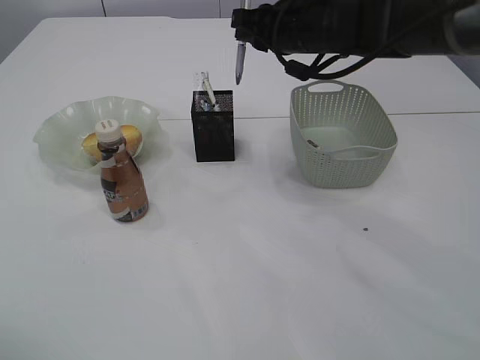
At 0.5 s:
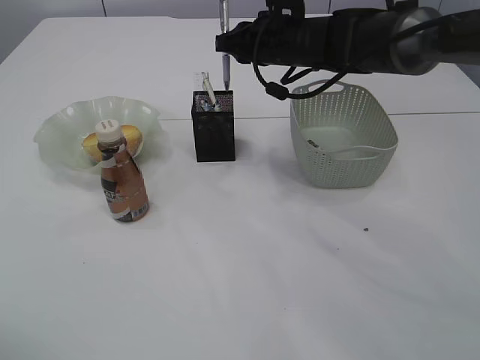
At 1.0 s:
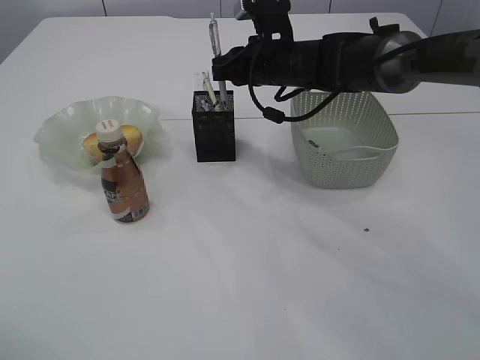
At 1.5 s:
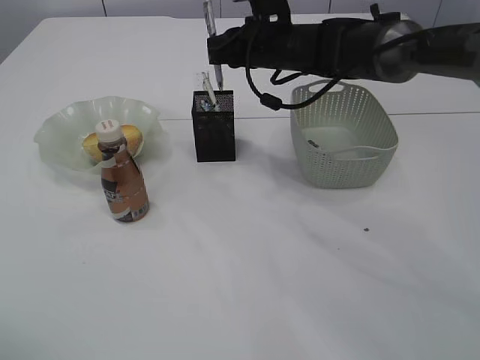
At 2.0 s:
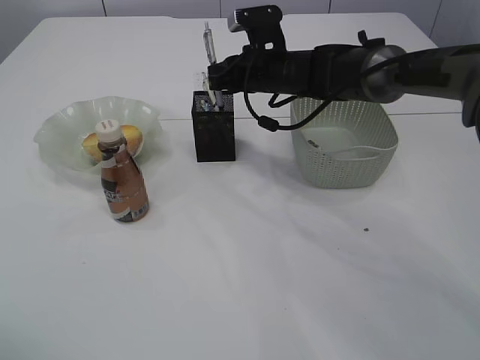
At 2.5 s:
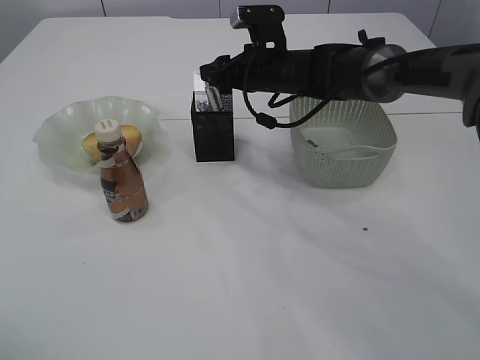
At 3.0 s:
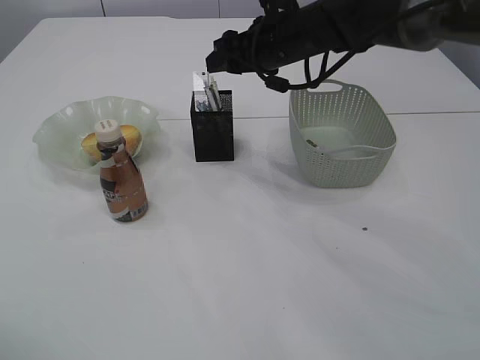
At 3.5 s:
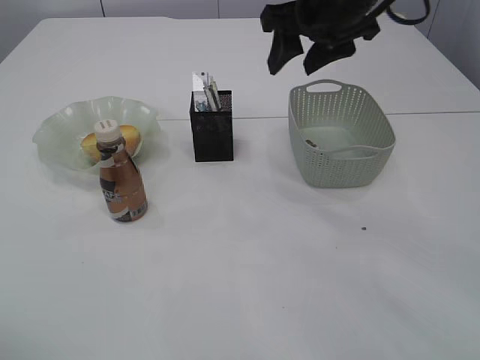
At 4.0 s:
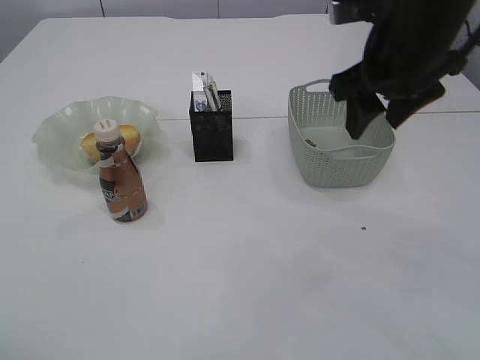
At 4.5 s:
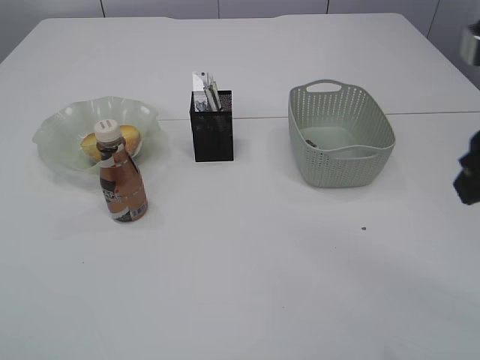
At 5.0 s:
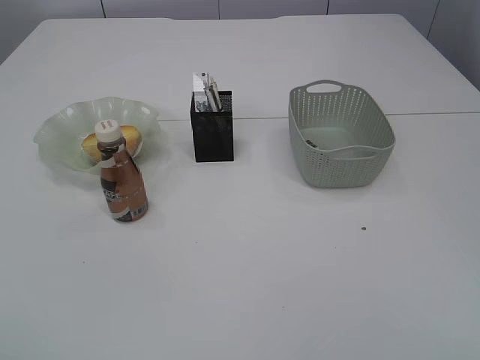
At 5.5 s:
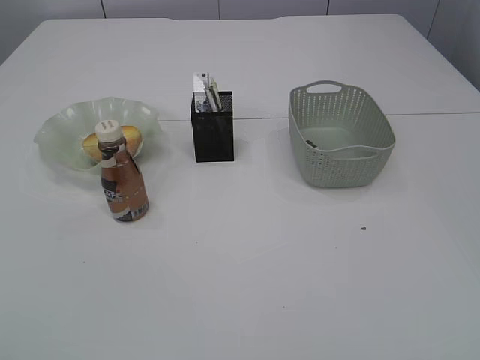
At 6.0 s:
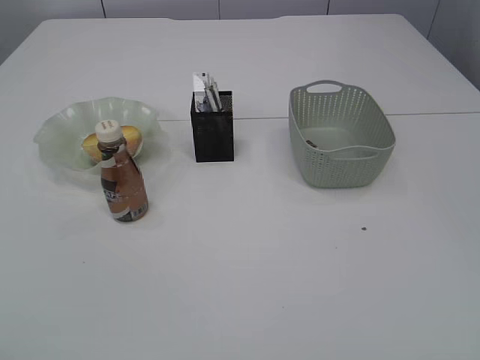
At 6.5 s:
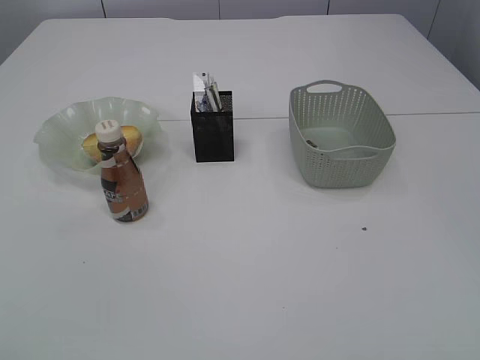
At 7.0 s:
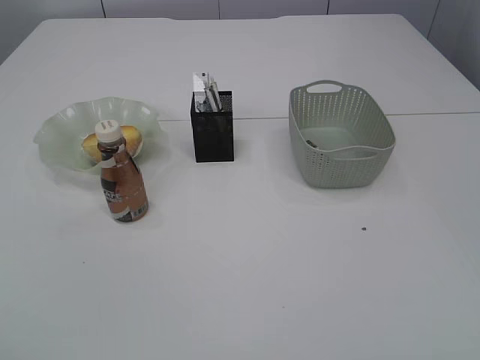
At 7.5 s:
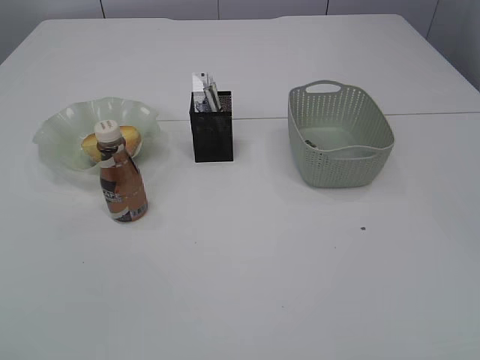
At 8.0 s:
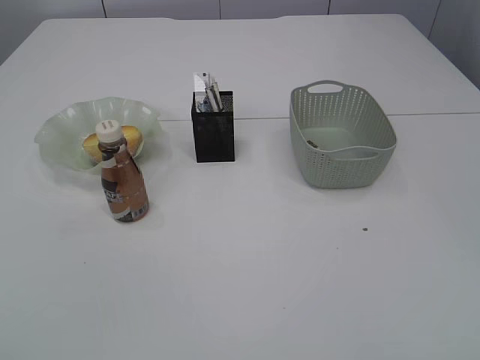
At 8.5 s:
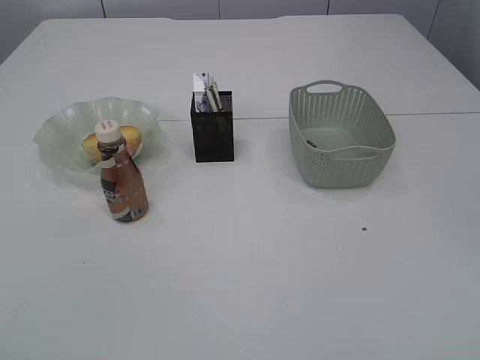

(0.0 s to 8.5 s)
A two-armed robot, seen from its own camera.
Step, 0.0 s - 2.5 s: Place the pen into the pen holder.
0.0 s - 2.0 s: The right gripper shifts approximately 10 cm downward and forward.
2.0 s - 4.0 s: The right gripper travels backward, upward and to the right by some 20 cm, and opens.
4.0 s - 6.5 s: The right gripper heads backward, covering some 35 cm. The left gripper shifts approximately 15 cm backward, and opens up.

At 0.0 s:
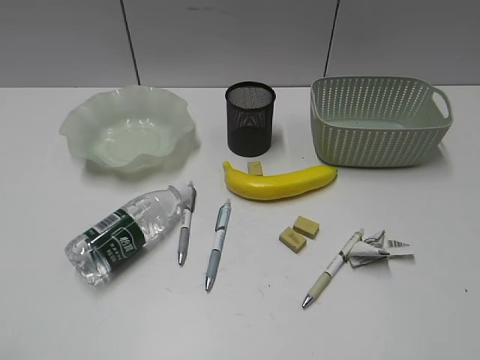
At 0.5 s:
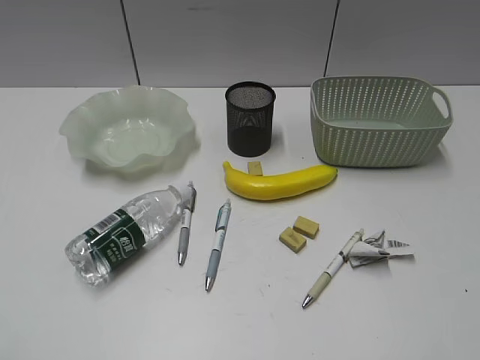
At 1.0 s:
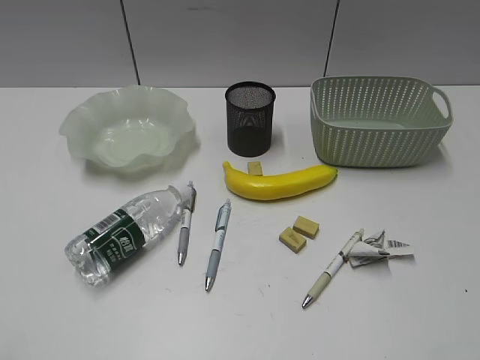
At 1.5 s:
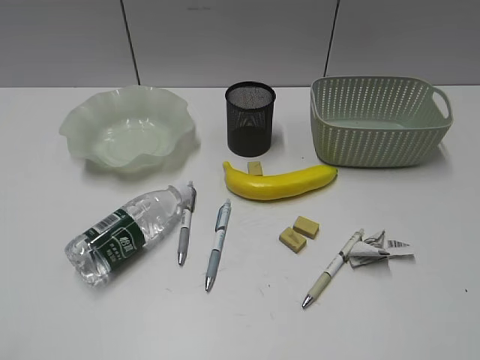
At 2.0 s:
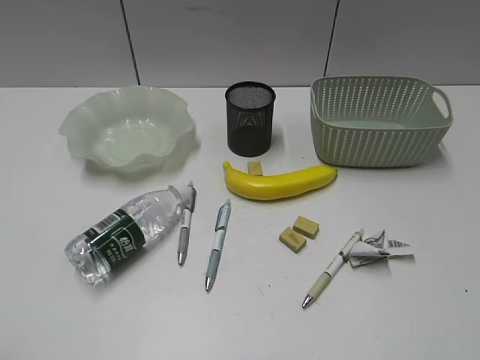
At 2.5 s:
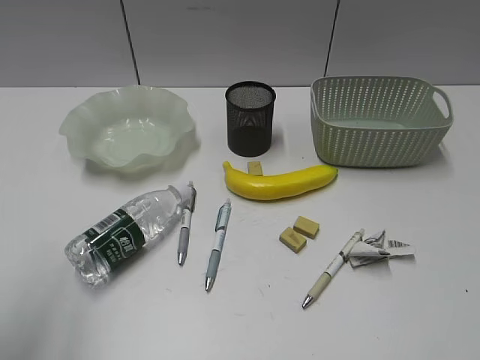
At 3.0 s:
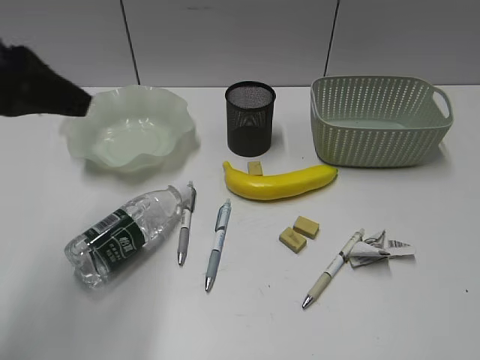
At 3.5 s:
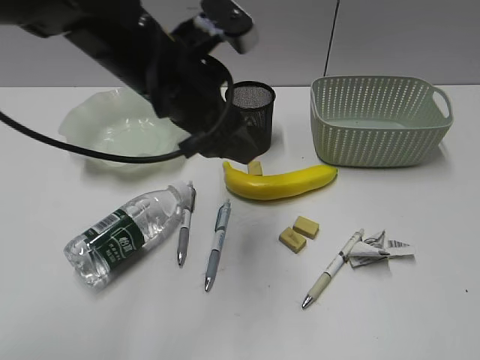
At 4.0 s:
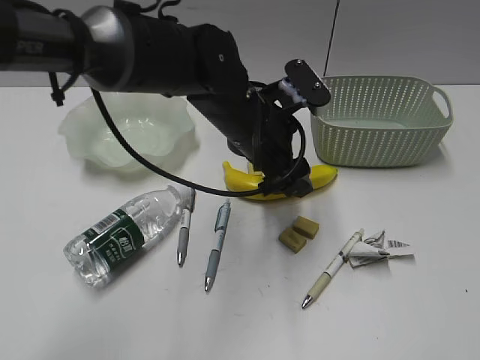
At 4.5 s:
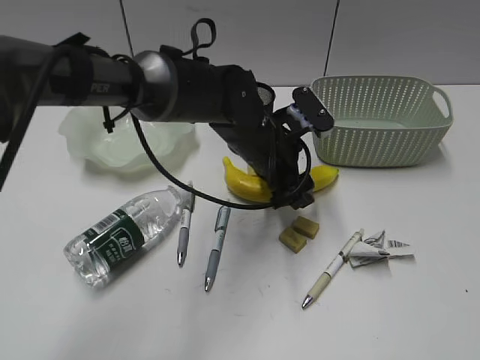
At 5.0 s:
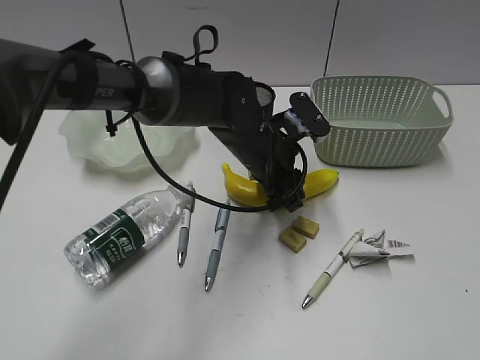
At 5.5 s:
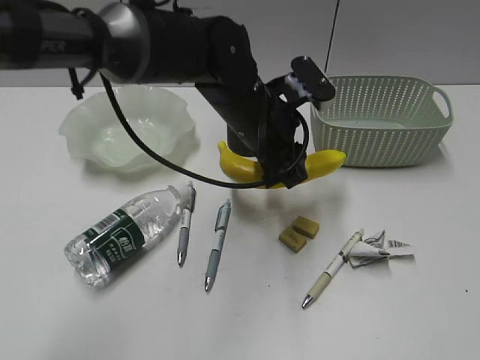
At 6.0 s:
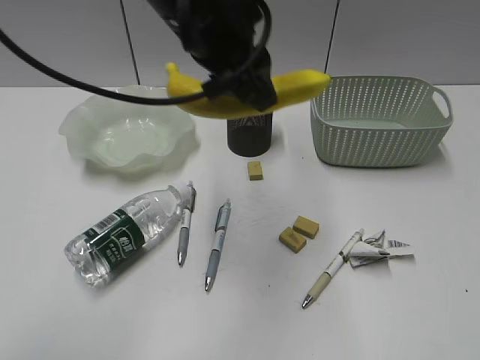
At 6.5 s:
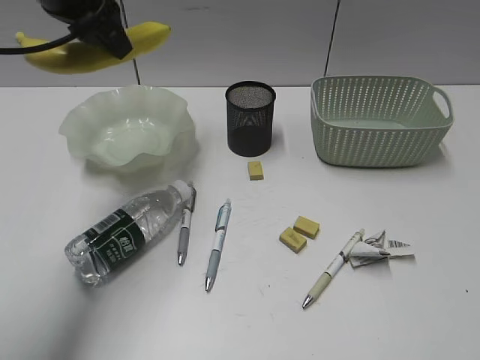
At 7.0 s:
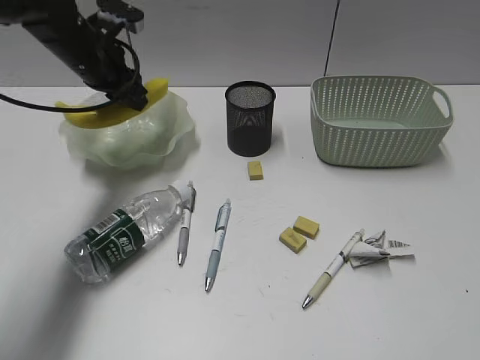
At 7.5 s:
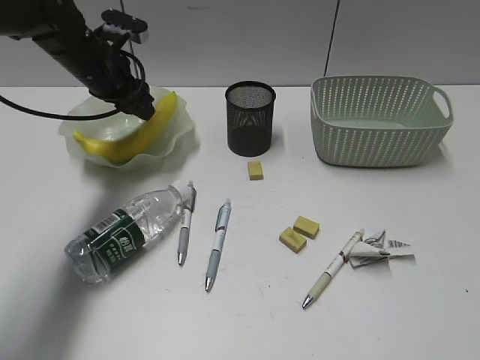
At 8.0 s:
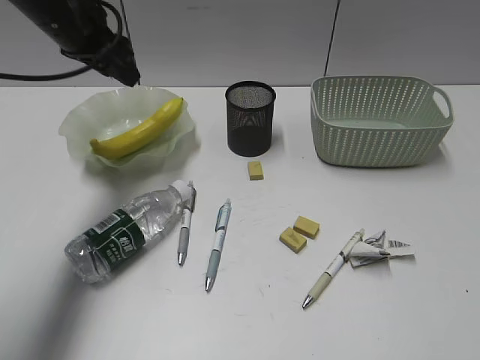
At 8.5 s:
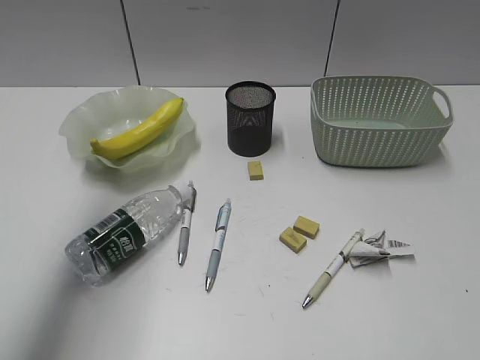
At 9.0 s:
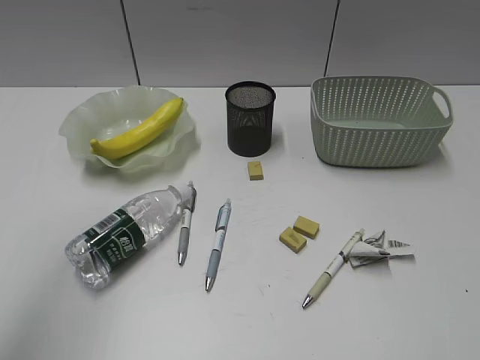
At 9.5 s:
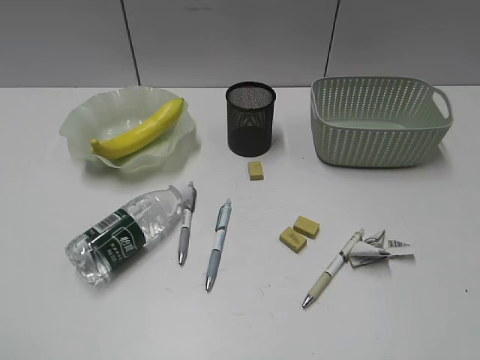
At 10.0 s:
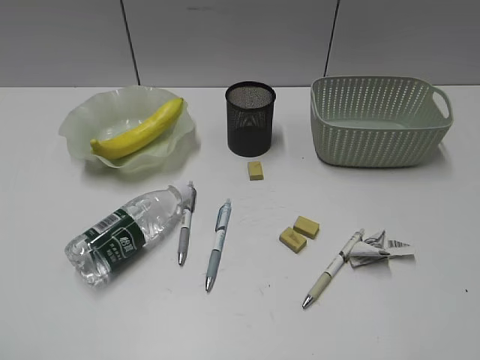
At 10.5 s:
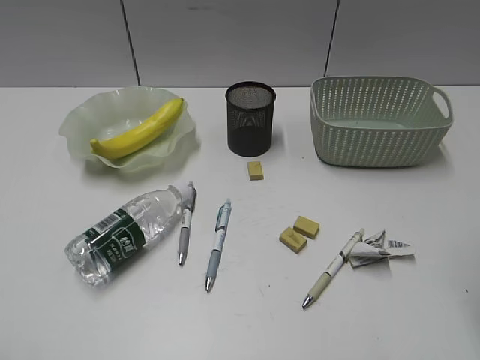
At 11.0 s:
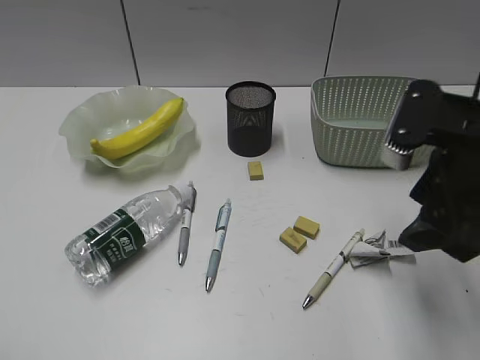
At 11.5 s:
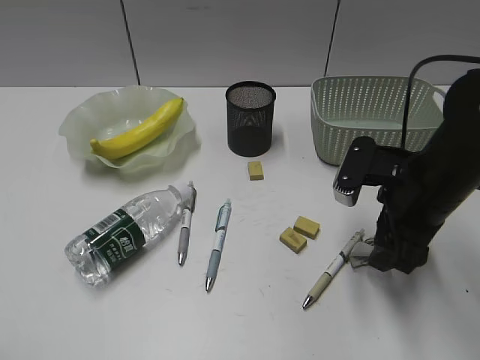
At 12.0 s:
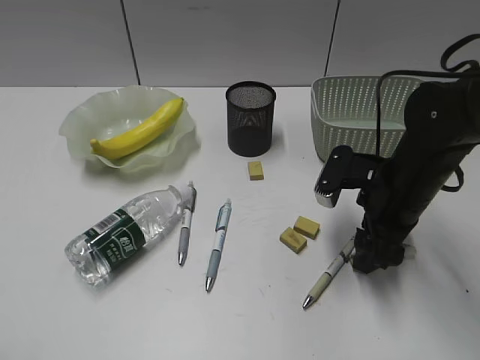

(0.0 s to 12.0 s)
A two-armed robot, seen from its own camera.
Step, 2.0 s - 5.0 s: Grasp the banana with left gripper.
Step, 5.5 s - 7.5 s: Place the banana in the plate with left gripper.
2.0 s - 4.0 s: The left gripper travels forward and to the right by approximately 50 cm, and opens up.
4.0 s - 6.0 s: The left gripper travels upward by approximately 15 cm, and closes its fingers.
6.0 s - 8.0 s: The left gripper goes some 20 cm to the left and forward.
8.0 s - 10.0 s: The left gripper is displaced backward by about 40 cm.
10.0 s - 12.0 s: The right gripper moves forward, downward and to the left, approximately 35 cm.

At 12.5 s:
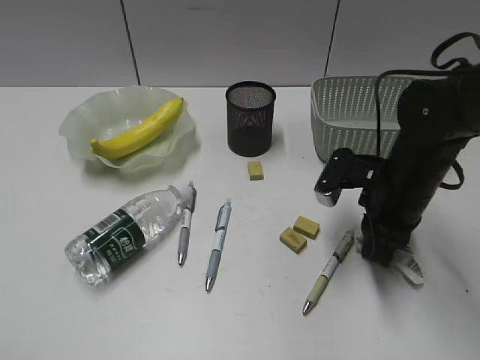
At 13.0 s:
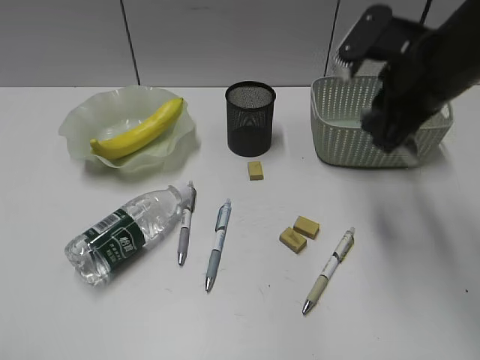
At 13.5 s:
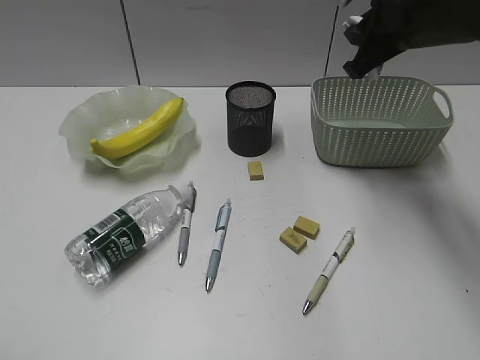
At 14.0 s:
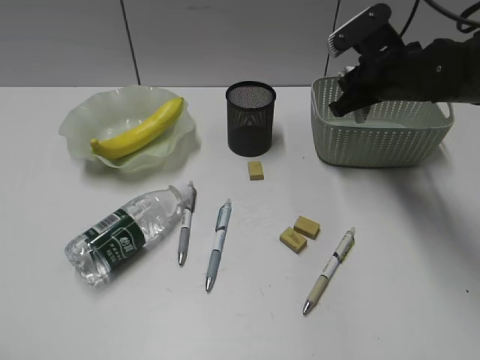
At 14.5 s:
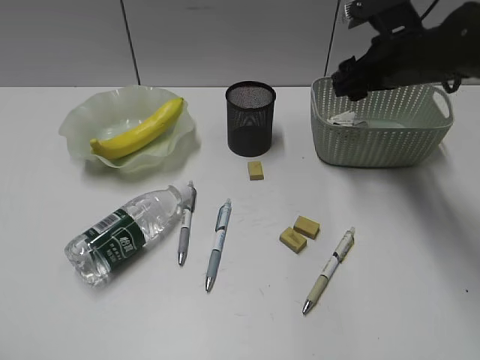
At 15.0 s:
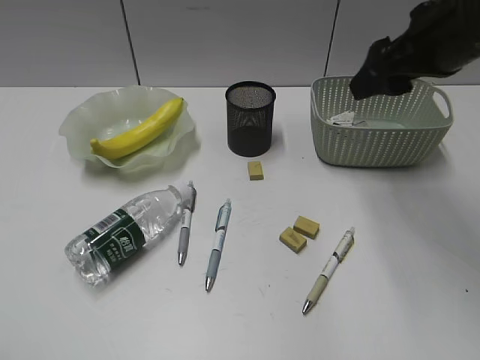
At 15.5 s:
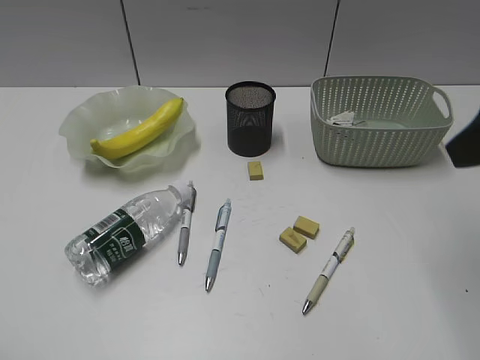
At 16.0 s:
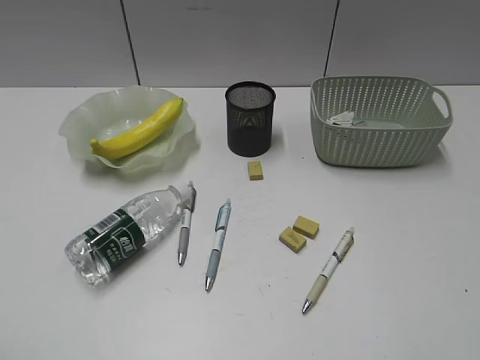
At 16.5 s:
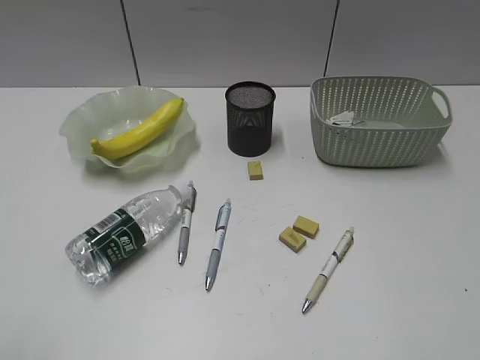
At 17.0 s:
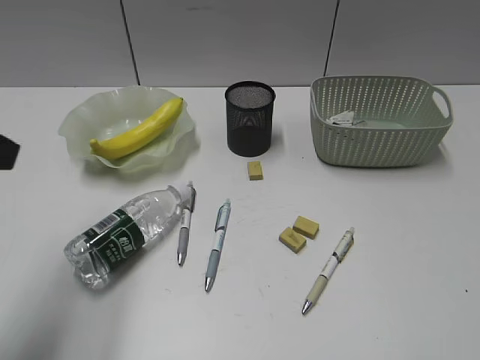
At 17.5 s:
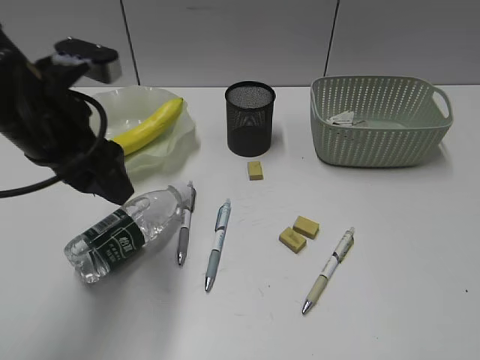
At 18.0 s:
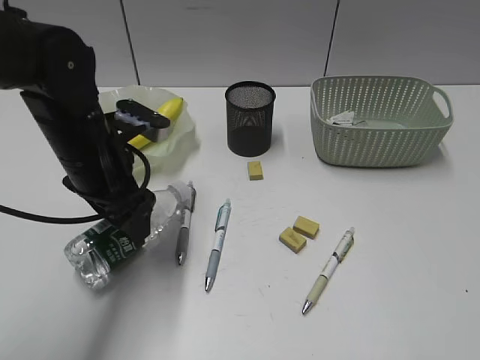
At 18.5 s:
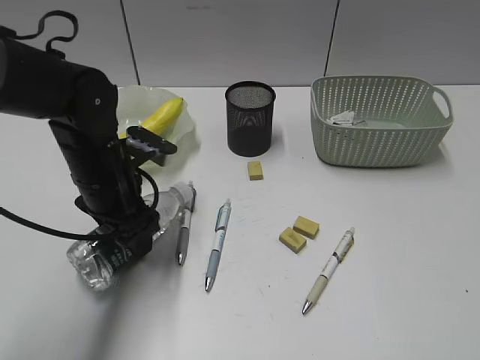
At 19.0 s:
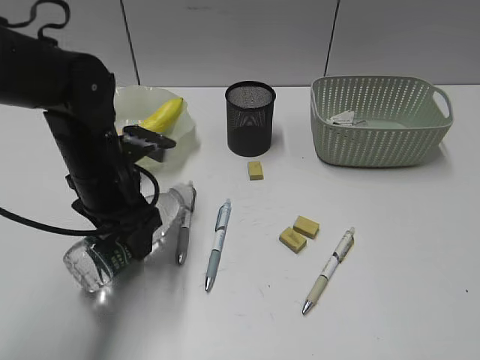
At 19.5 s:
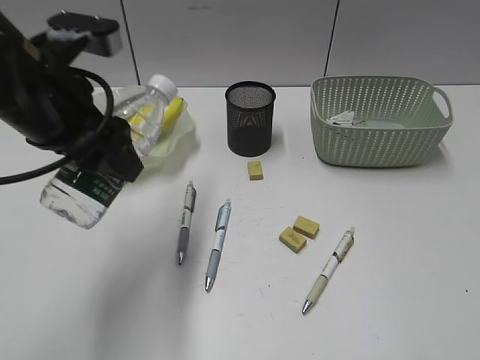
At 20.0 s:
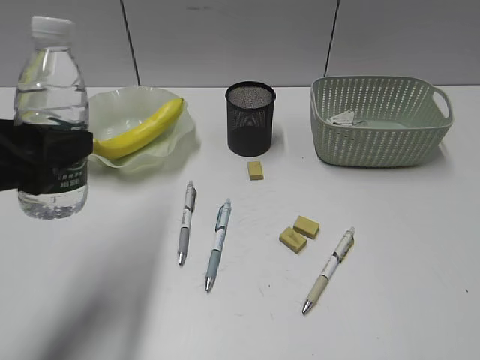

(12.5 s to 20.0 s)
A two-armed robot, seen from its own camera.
Step, 13.0 s - 14.5 s: Place the waste paper in the basket with right gripper.
Step, 15.0 s - 18.5 s: Grasp the bottle with left gripper.
12.5 s - 14.5 s: The right gripper heads forward and upward, covering approximately 15 cm, and opens.
14.5 s - 16.5 s: The right gripper is displaced backward by about 40 cm.
16.5 s - 18.0 s: The left gripper is displaced forward, to the right and downward by some 35 cm, and opens.
18.0 s - 20.0 s: The left gripper moves backward, upward and to the left, approximately 15 cm.
